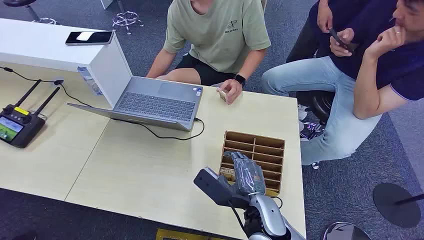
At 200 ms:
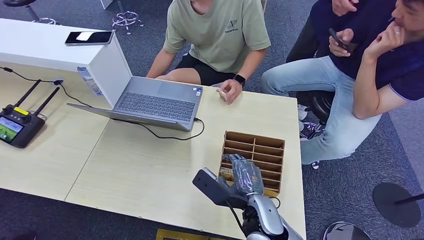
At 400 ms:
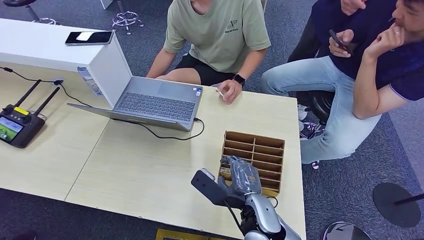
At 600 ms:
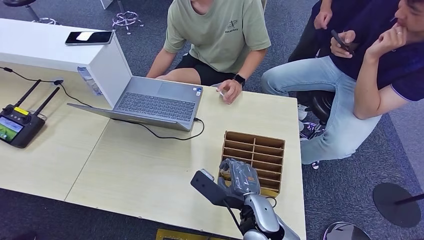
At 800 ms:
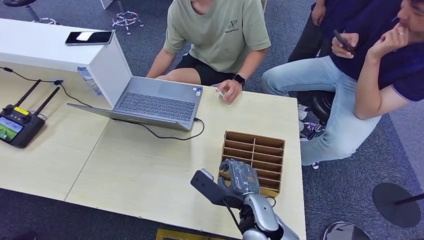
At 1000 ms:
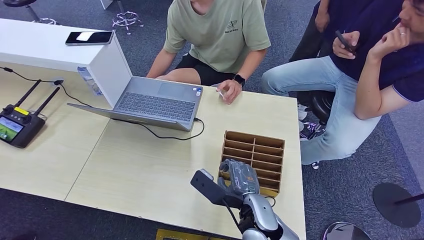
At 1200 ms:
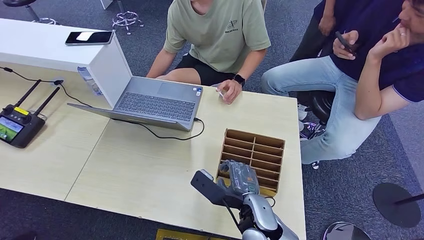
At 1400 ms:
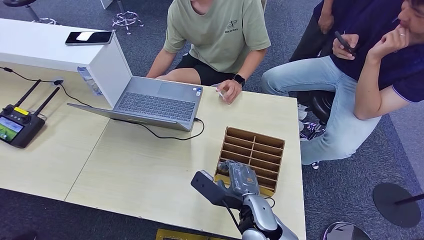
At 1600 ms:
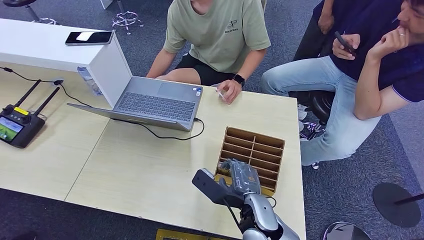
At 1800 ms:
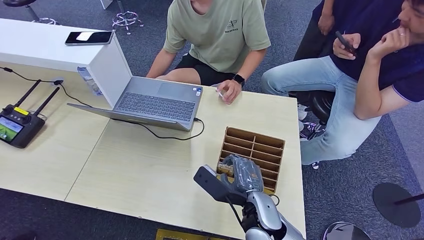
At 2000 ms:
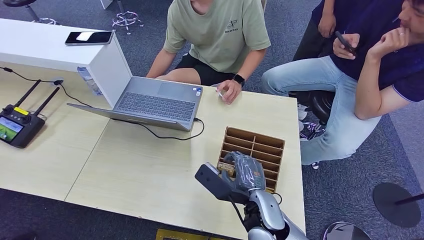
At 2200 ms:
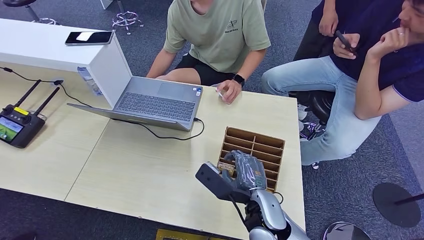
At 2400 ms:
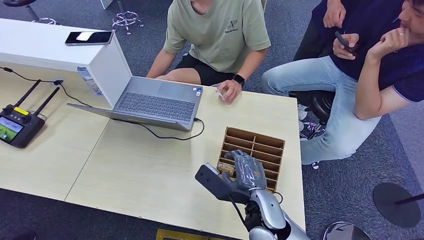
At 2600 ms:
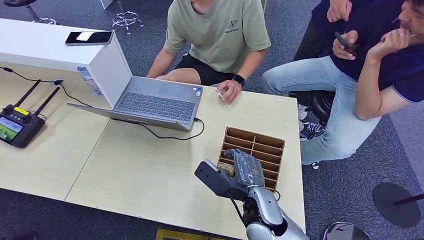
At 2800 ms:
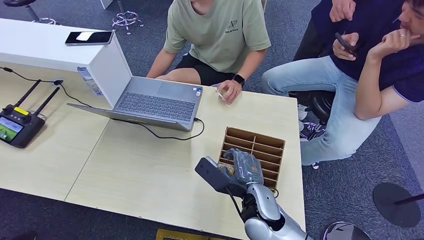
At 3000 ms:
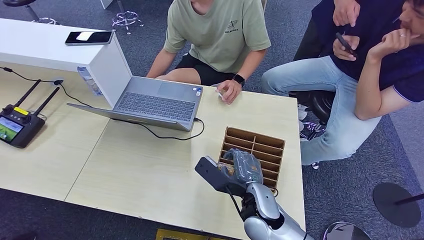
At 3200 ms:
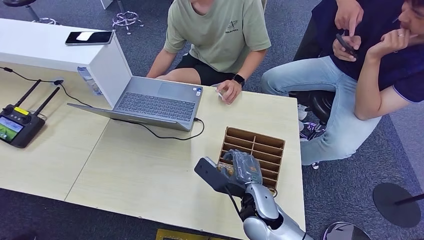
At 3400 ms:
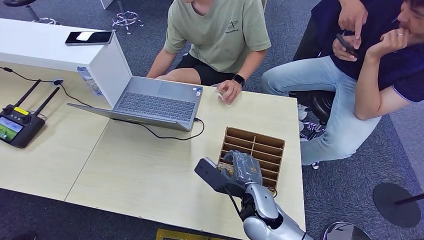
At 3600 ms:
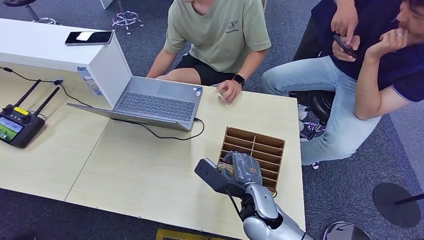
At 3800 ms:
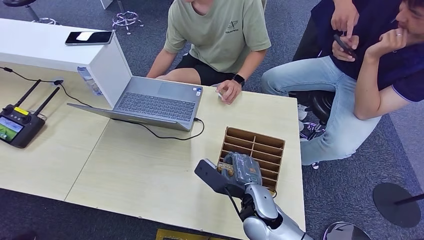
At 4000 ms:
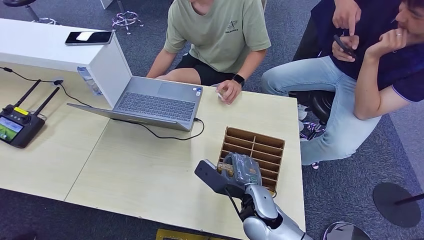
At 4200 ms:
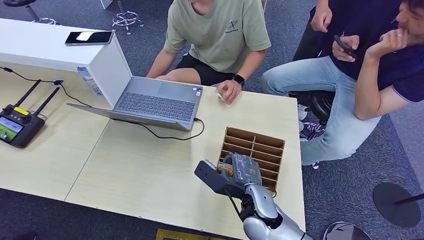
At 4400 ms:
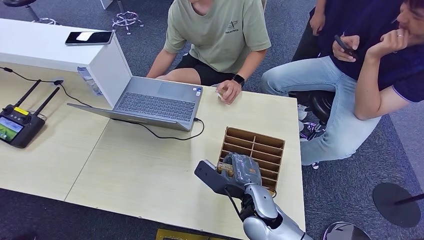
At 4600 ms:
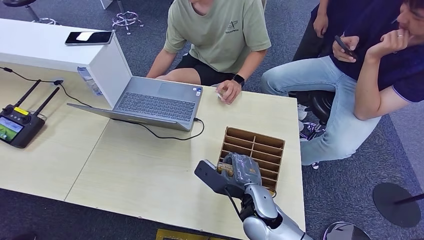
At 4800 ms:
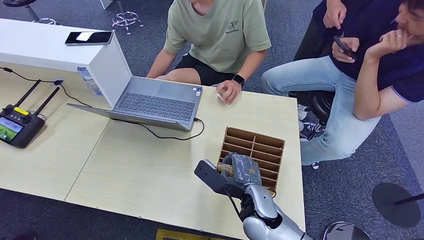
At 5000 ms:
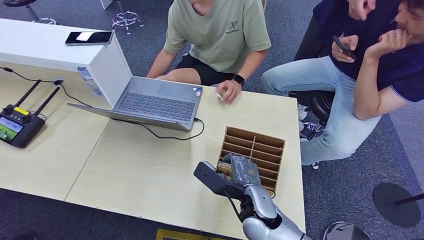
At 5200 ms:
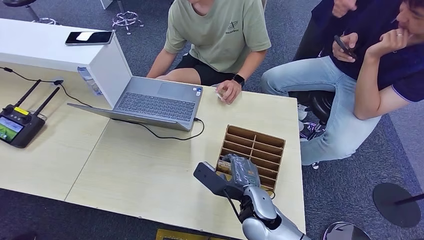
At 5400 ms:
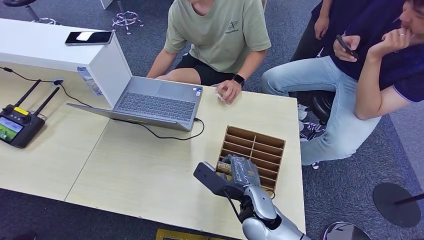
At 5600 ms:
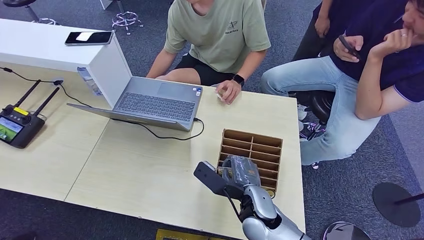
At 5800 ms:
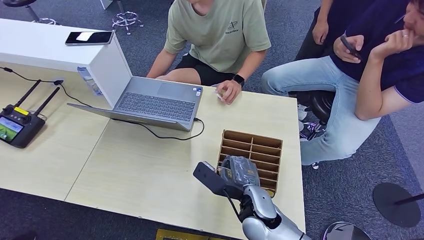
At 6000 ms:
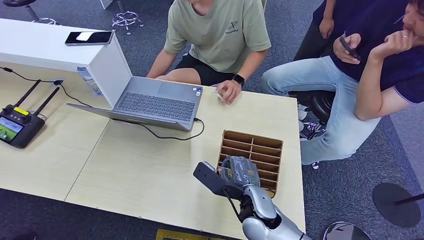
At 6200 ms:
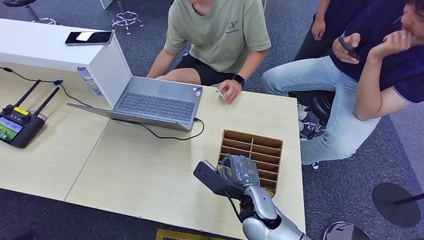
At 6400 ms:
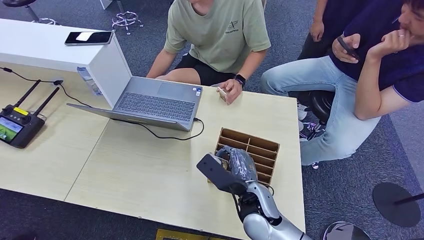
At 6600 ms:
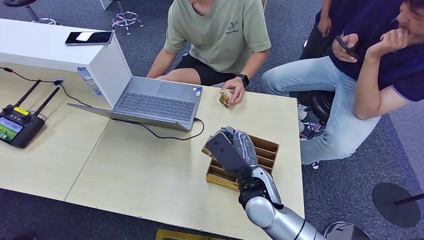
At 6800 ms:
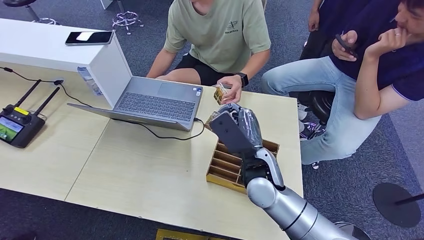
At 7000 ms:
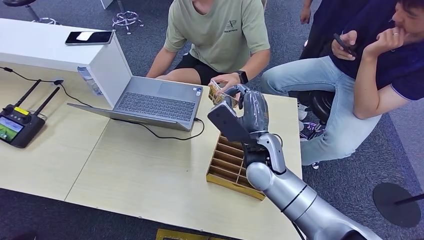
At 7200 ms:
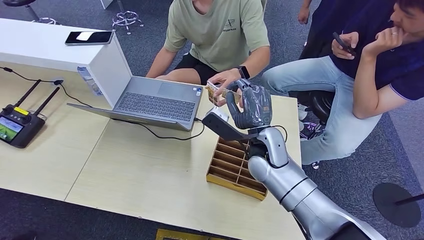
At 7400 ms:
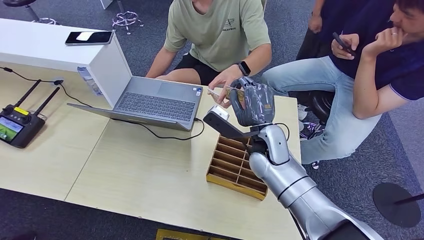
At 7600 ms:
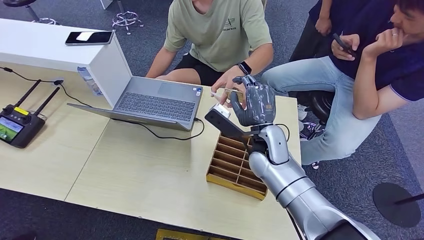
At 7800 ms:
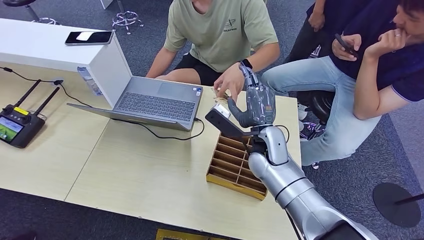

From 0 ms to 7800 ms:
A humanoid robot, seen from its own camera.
Step, from 0 ms to 6800 ms: Pick up the key card from the card box.
Step, from 7000 ms to 7800 ms: Hand the key card to the target.
From 1600 ms to 3200 ms: The hands make only small movements.
From 3200 ms to 6200 ms: Both hands stay about where they are.
From 6200 ms to 7800 ms: The right hand heads forward and upward, covering about 15 cm.
